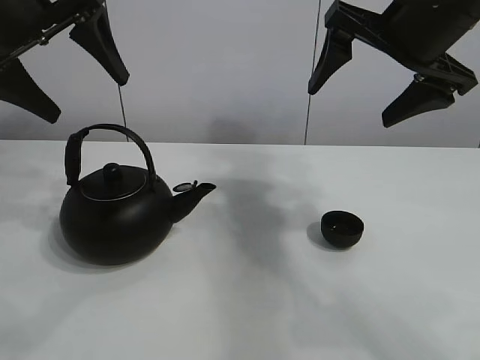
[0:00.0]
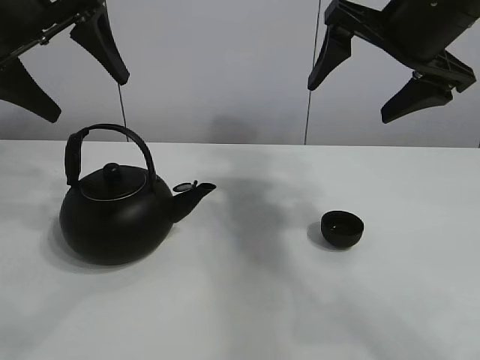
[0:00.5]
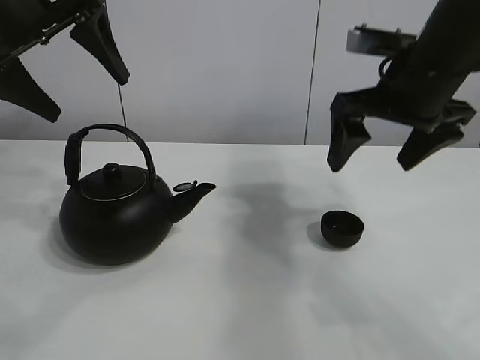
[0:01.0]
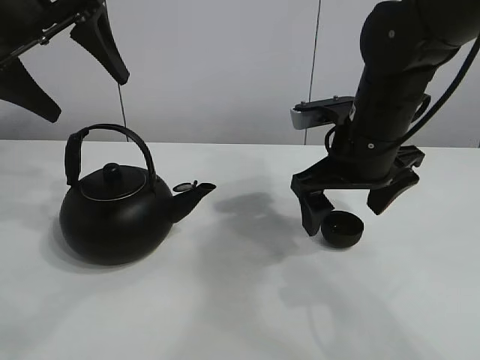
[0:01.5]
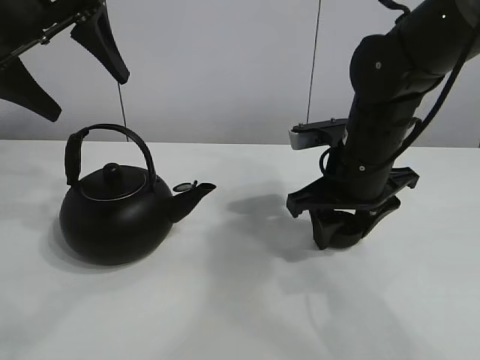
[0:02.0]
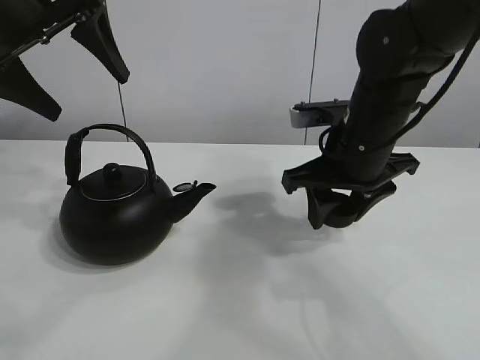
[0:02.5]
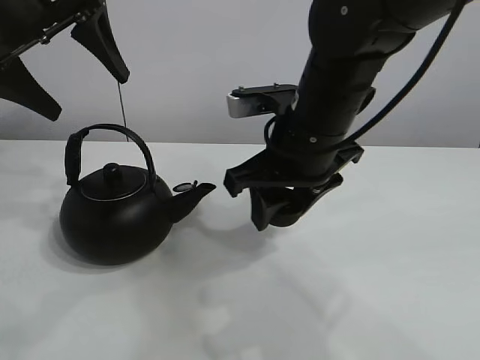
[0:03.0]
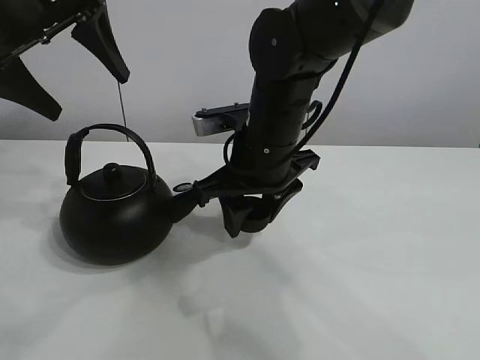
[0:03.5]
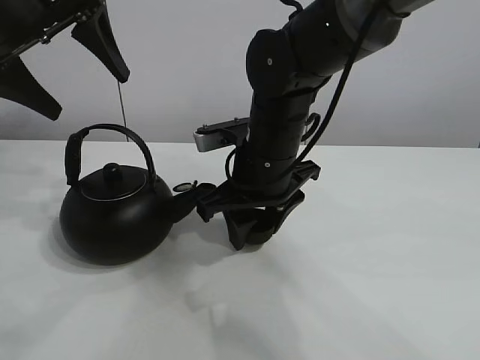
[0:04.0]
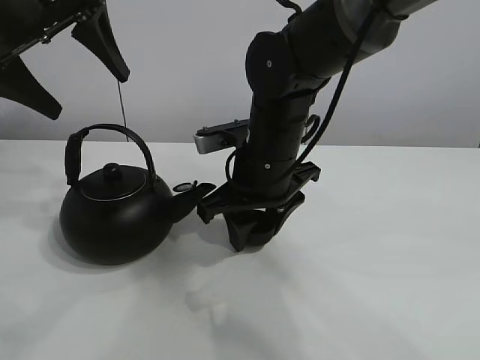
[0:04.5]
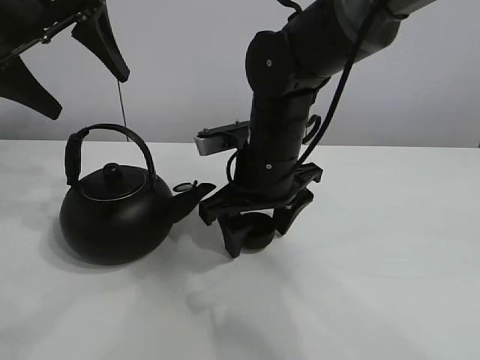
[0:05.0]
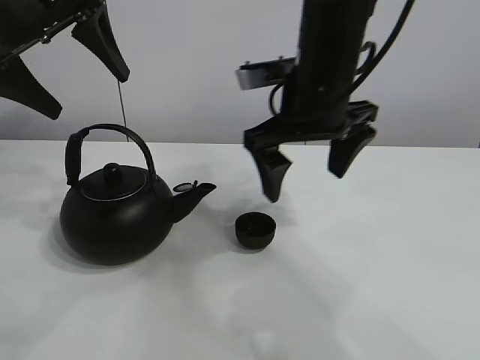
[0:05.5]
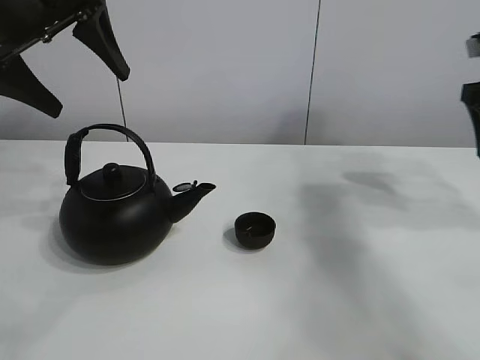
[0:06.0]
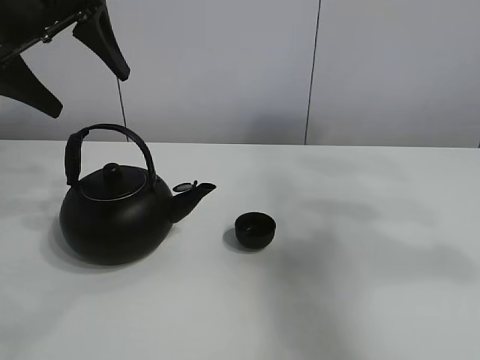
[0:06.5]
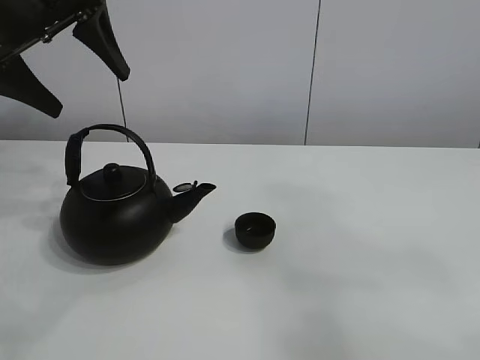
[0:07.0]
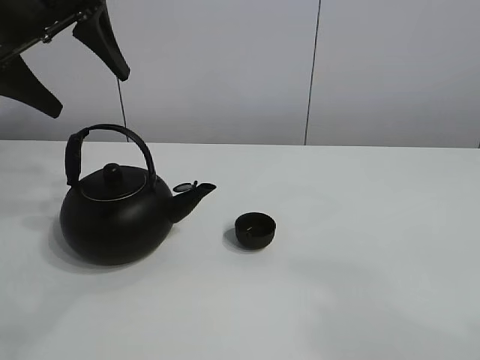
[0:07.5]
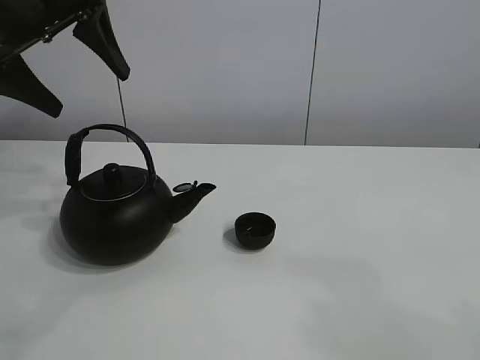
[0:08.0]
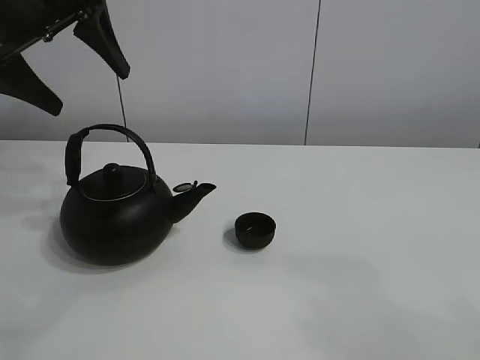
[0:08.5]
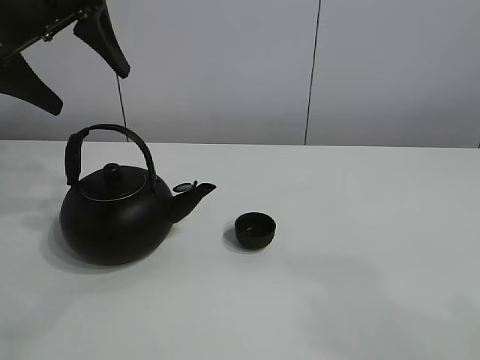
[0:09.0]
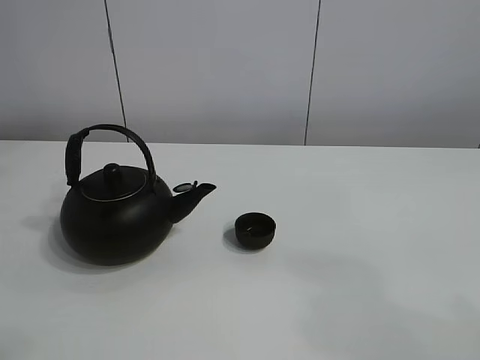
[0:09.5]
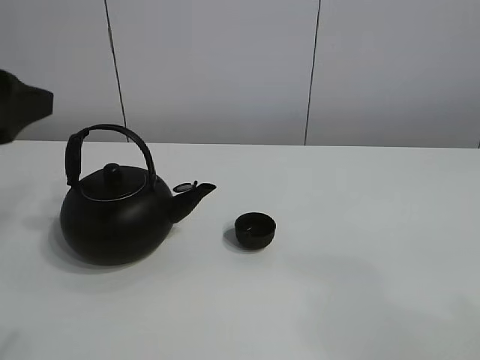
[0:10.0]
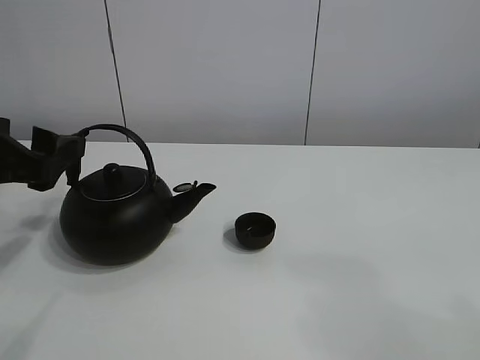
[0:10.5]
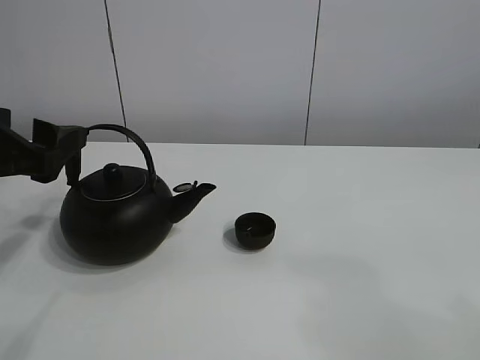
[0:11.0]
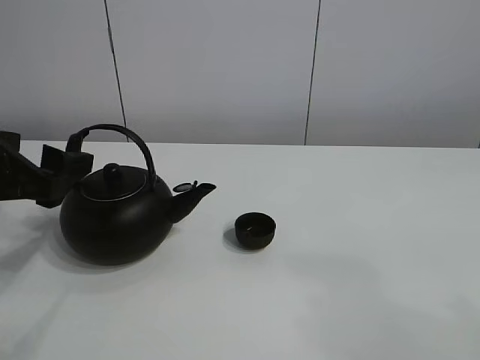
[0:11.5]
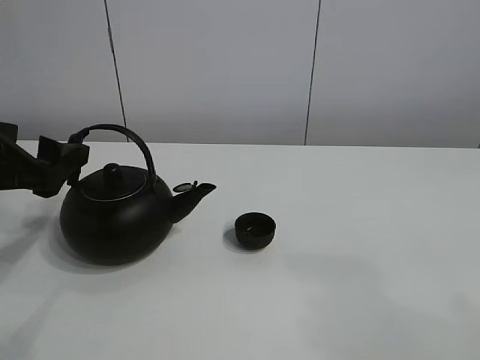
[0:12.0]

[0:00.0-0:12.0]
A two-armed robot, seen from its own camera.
Task of the whole recording: pour tea into the teacup.
Step, 0:00.0 to 0:02.0: Pick up the teacup with the right gripper.
Step, 0:02.5 to 0:04.5: Place the teacup in the center of view with the right gripper.
0:02.0 to 0:04.0: The right gripper shifts approximately 10 cm to the left.
0:04.0 to 0:06.0: The right gripper moves to the right and upward, some 30 cm, and opens its fingers.
0:06.0 to 0:08.0: The right gripper heads backward, covering about 40 cm.
0:08.0 to 0:10.0: The left gripper shifts some 15 cm backward and downward.
0:10.0 to 0:12.0: The left gripper is displaced downward by approximately 5 cm.

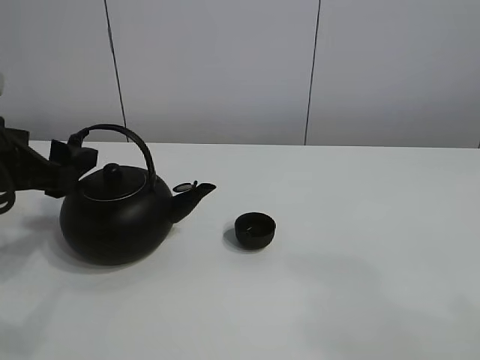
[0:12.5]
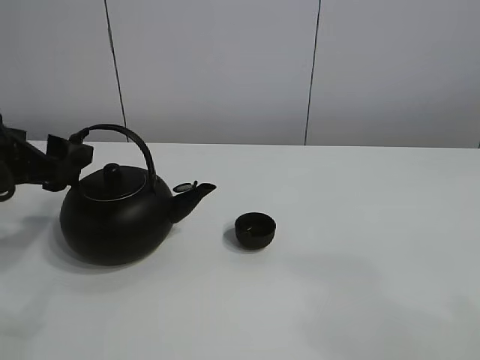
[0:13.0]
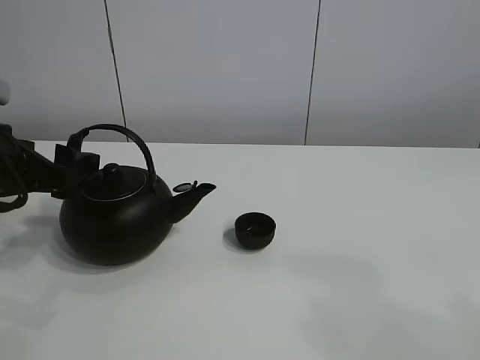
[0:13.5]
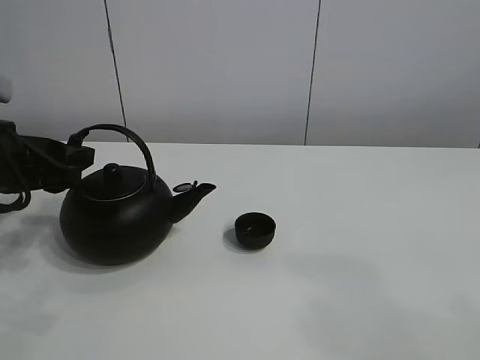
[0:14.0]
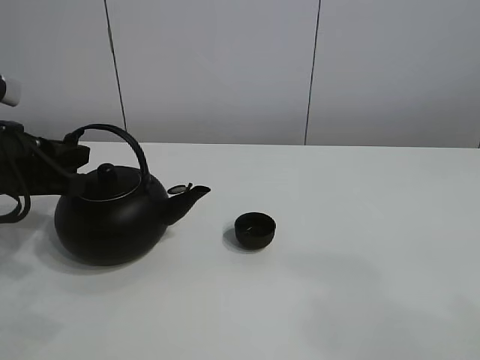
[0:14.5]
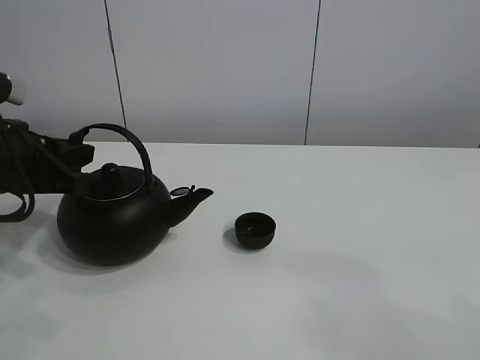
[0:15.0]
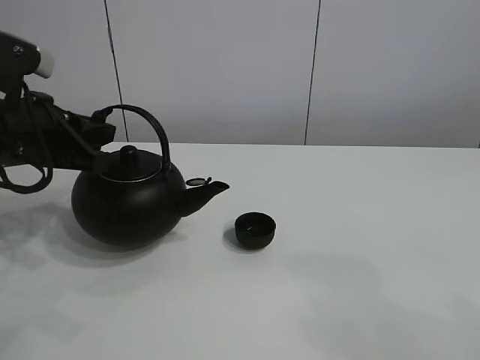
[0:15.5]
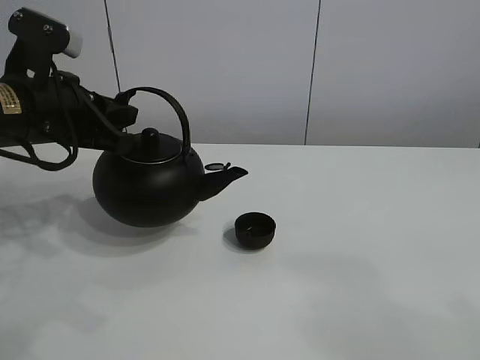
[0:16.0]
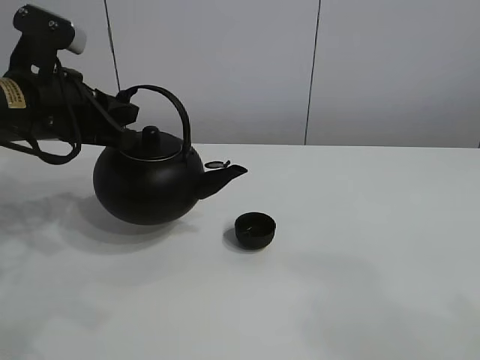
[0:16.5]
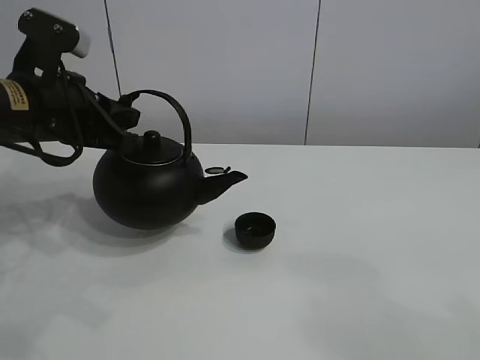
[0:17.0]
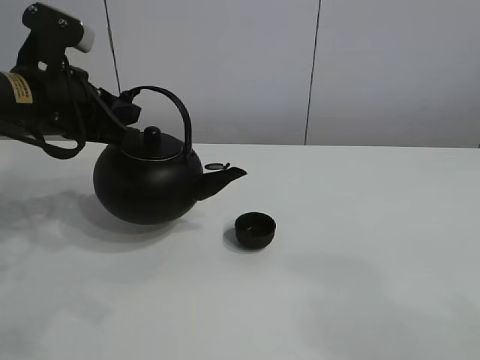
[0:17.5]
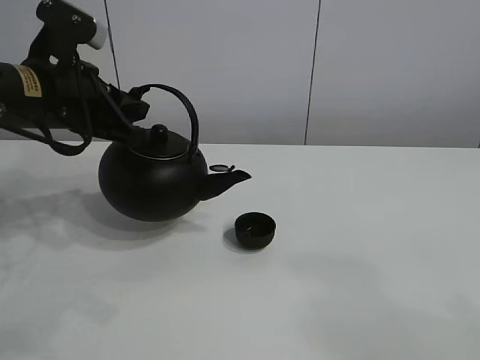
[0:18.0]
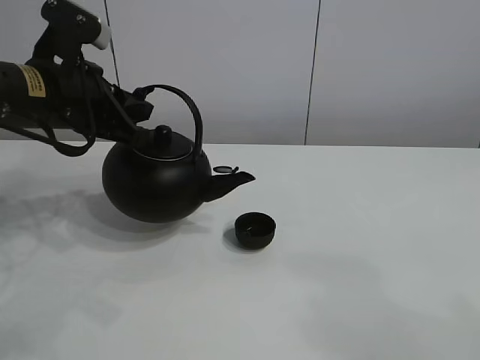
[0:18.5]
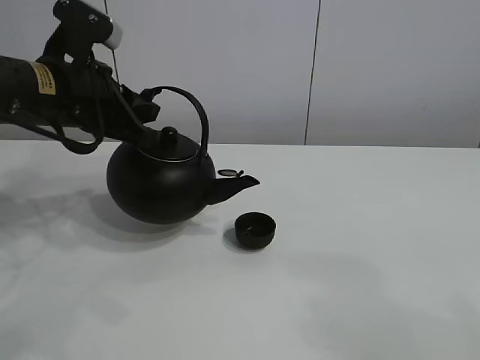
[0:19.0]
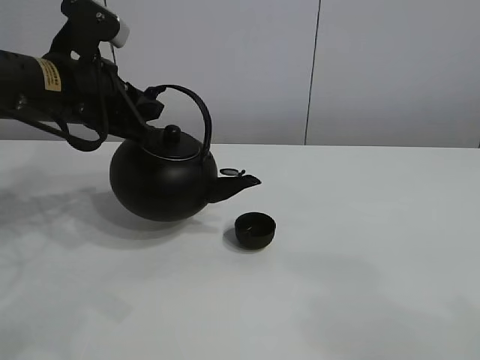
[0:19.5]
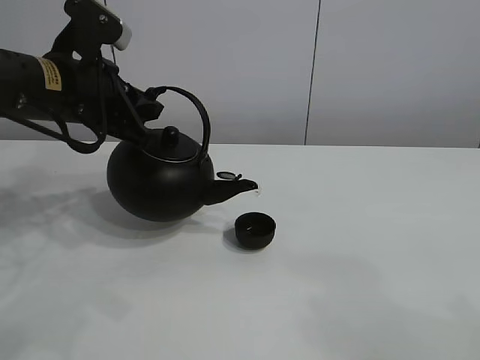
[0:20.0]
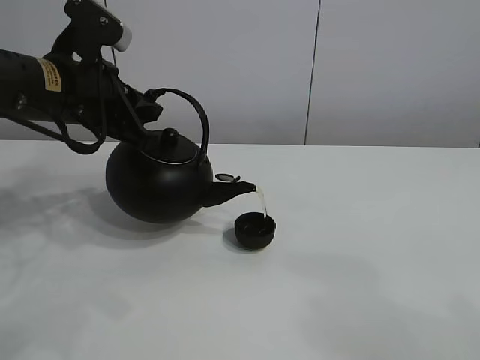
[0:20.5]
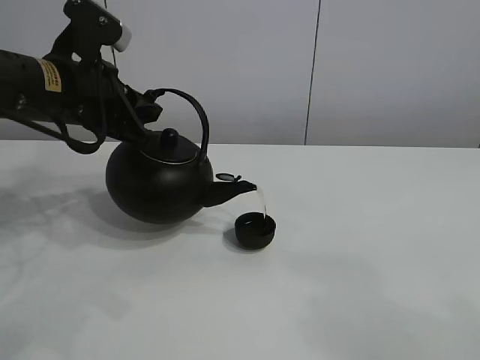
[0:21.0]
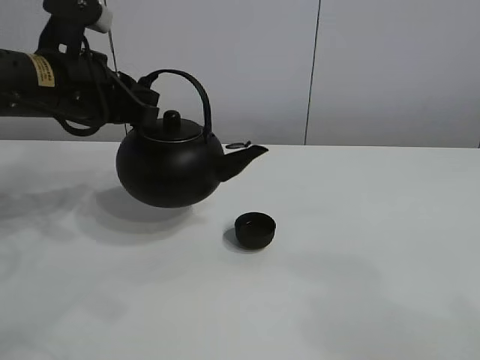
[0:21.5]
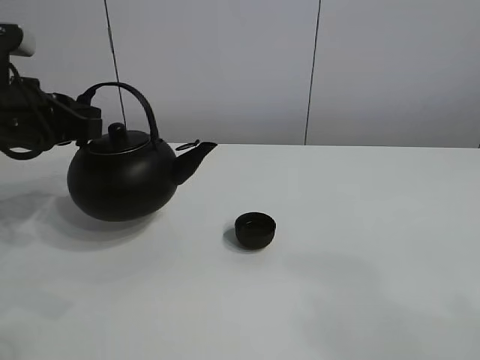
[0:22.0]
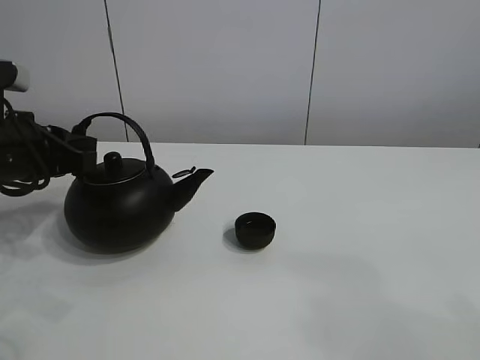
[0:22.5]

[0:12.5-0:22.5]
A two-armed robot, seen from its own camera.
Task of the whole recording: pour tea into the teacup.
Step, 0:12.5 to 0:15.0: Pick up the teapot with the left gripper.
Step, 0:15.5 to 0:21.0: Pour tea into the teacup with the left gripper.
0:12.5 to 0:14.5: The left gripper closes its fingers.
0:14.5 to 0:16.5: The left gripper changes place by approximately 10 cm.
0:16.5 to 0:20.5: The grippers move only a little.
0:20.5 to 0:22.5: The left gripper is displaced to the left and downward by about 10 cm.

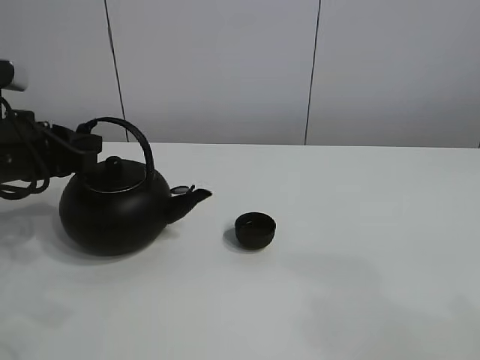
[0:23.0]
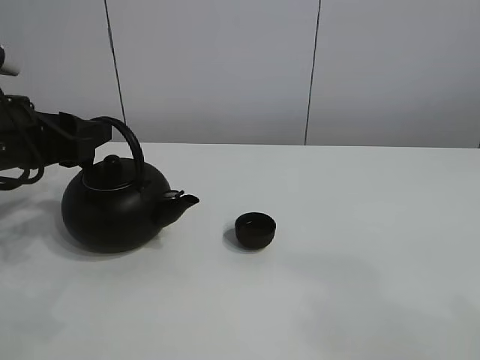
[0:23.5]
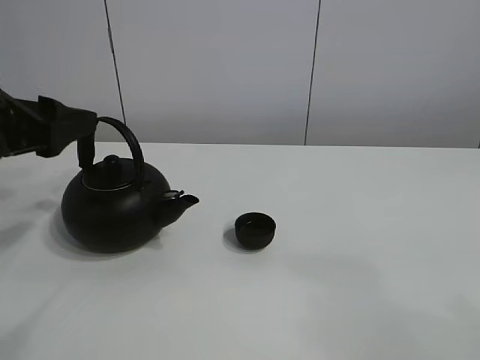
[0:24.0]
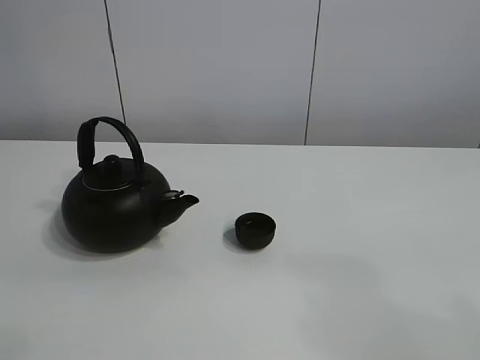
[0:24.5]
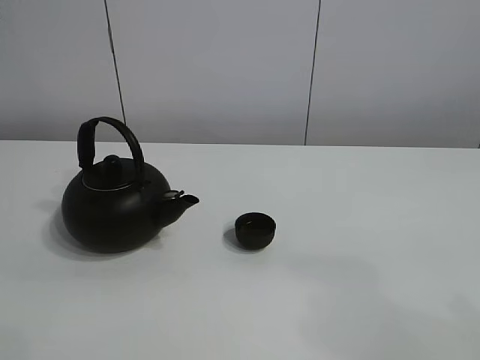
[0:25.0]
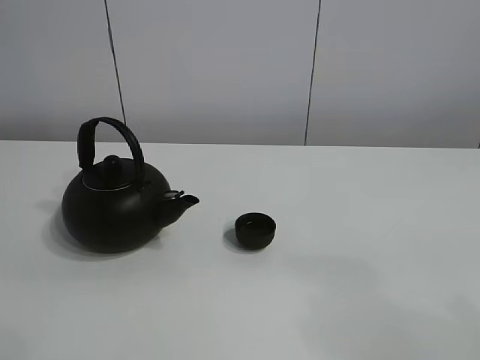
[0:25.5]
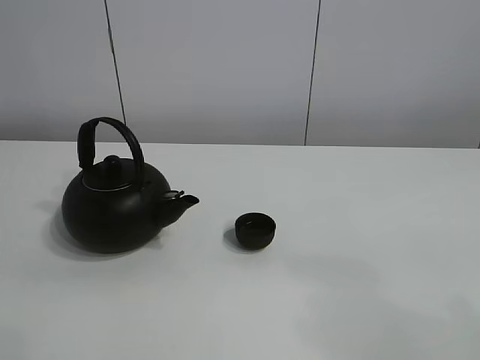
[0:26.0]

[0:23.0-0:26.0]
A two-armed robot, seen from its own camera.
Task of the whole recording: pour tea into the teacup.
0:23.0 to 0:24.5: The left gripper moves upward and to the left, approximately 15 cm, and opens.
